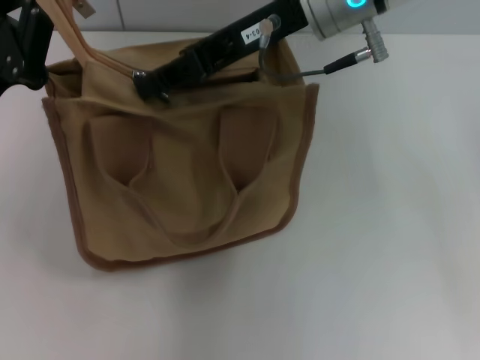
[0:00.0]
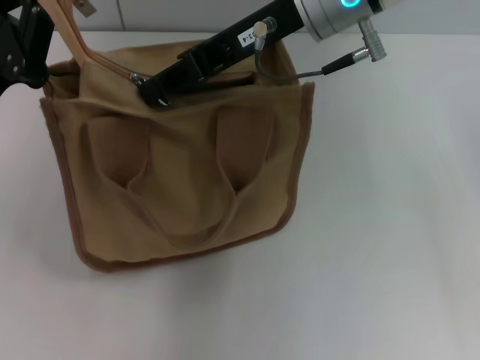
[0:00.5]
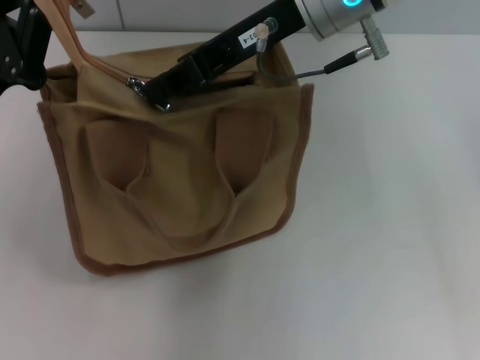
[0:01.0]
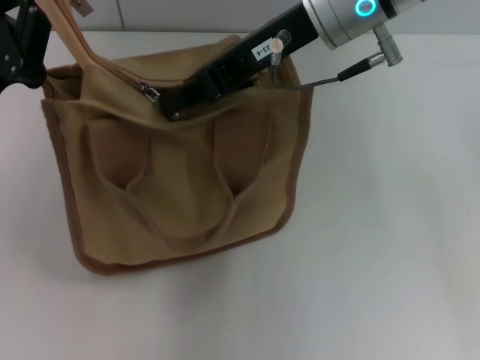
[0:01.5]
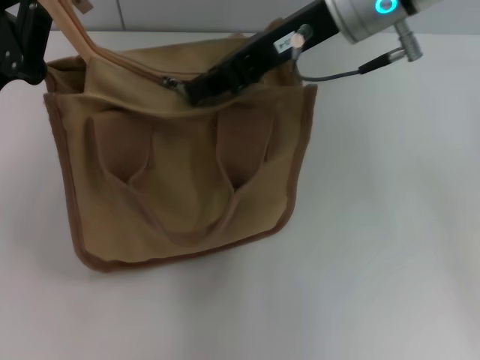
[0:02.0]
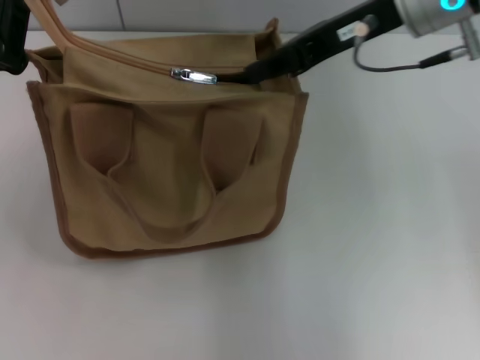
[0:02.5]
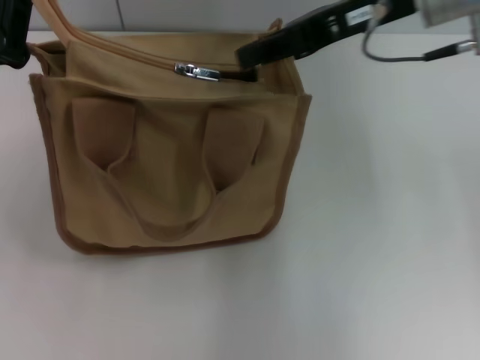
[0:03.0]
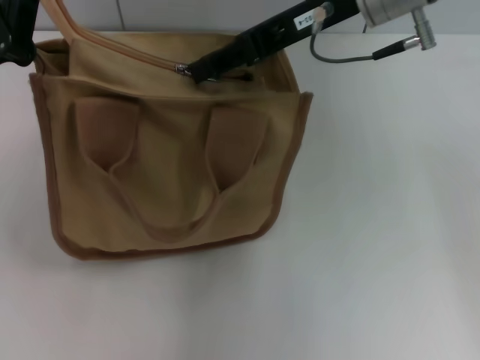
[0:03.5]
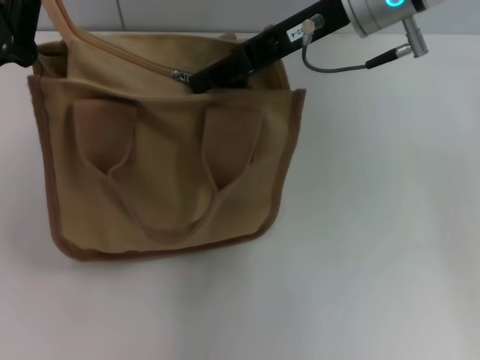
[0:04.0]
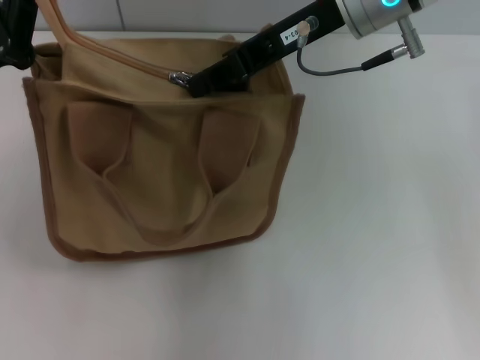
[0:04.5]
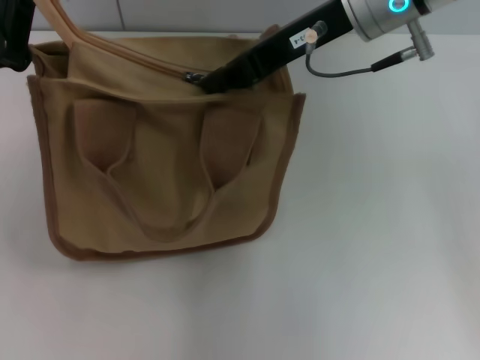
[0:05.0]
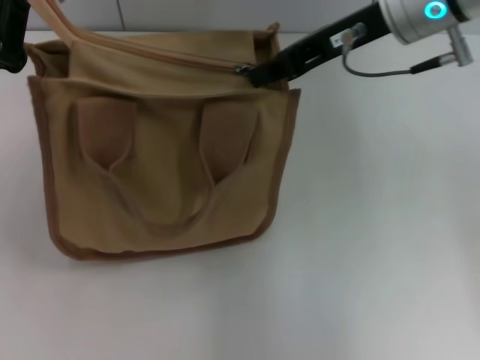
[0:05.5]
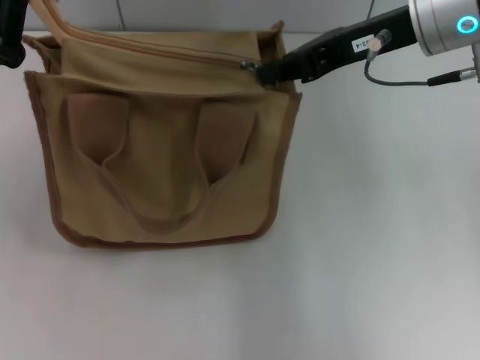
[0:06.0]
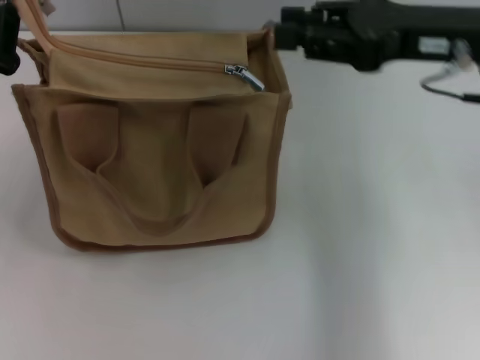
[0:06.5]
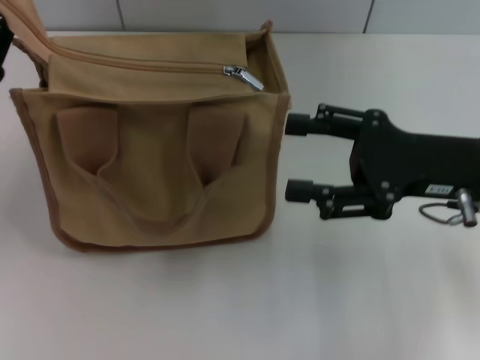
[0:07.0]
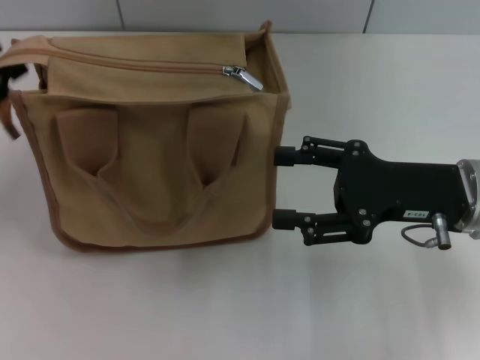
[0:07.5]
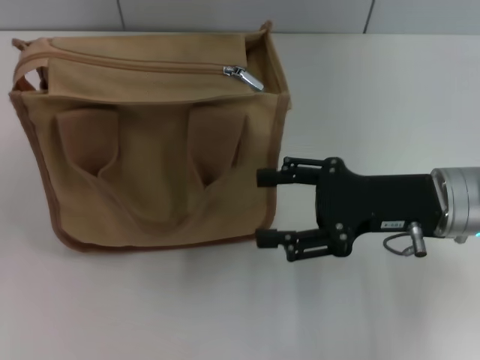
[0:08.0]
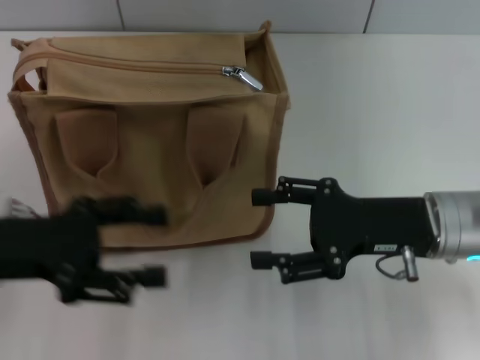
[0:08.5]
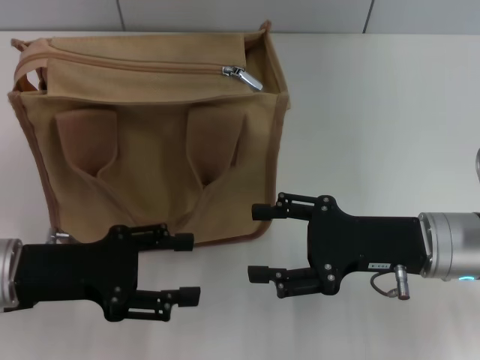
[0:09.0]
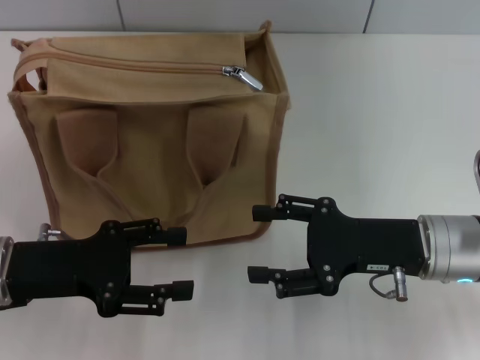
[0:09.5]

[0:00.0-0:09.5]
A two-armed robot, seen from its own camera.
Step, 0.0 to 6.0 s: Pull up the zipper with your right hand.
Step, 6.5 to 7.5 s: Grab the zipper with your left hand.
0.0 to 2.0 s: The grippers move only a little.
2.0 to 4.0 s: The right gripper opens.
4.0 to 5.5 s: The right gripper closes.
5.5 to 7.5 s: The left gripper is displaced to the left by roughly 10 cm, and opens. The right gripper moves downward, backward and to the right, some 20 cm, and opens.
7.5 to 9.5 s: The right gripper ends up about 5 cm from where it was. The left gripper heads to the right and downward, covering about 10 cm, and opens.

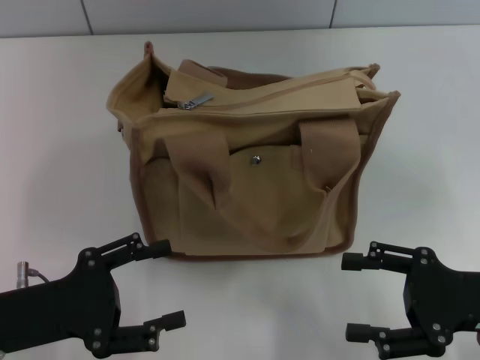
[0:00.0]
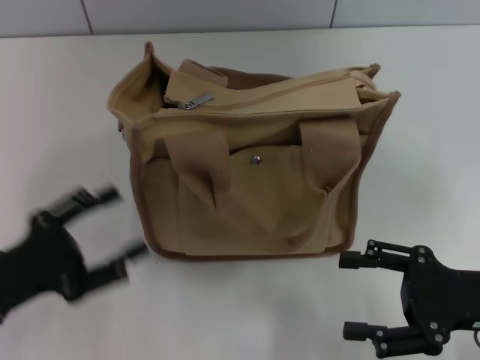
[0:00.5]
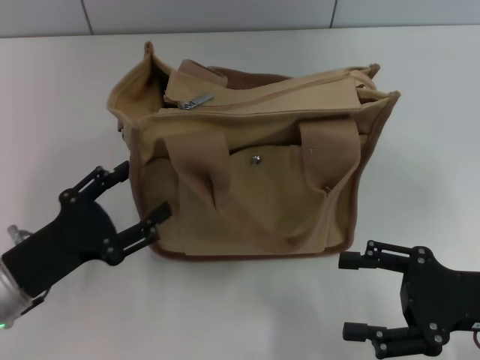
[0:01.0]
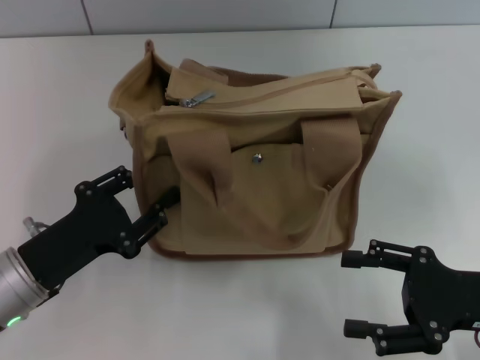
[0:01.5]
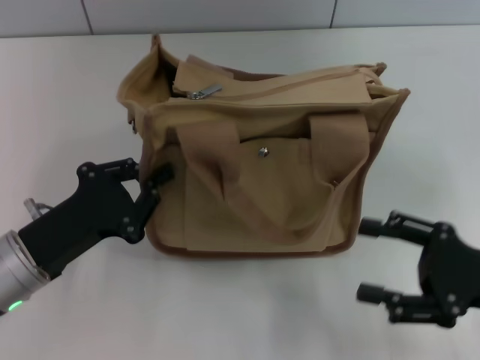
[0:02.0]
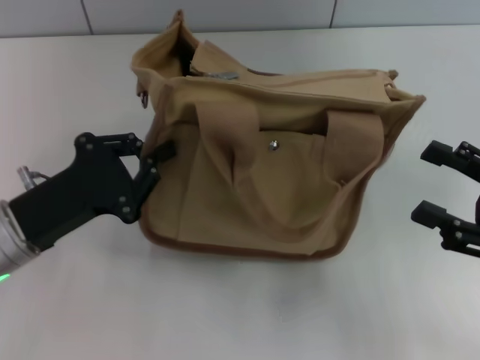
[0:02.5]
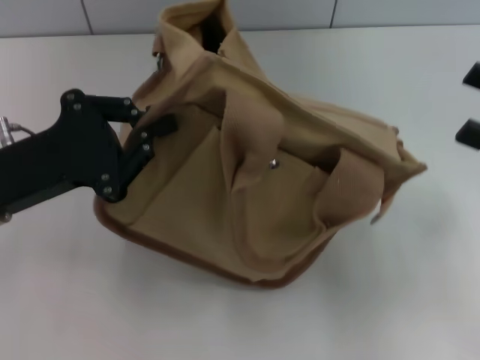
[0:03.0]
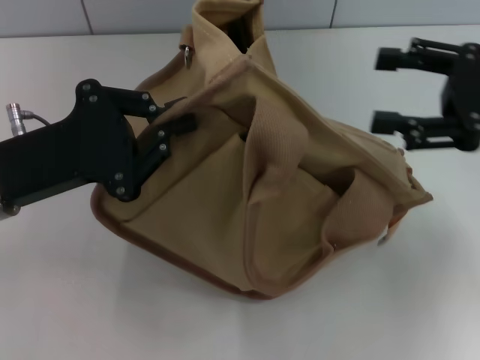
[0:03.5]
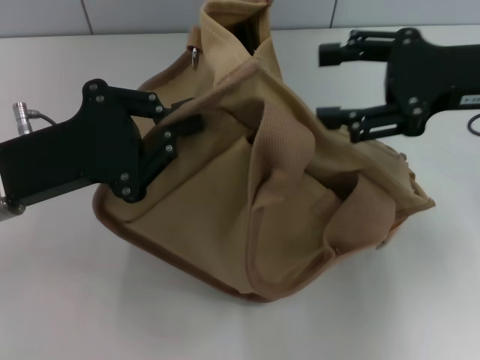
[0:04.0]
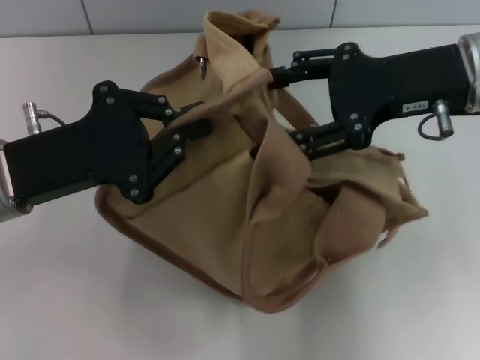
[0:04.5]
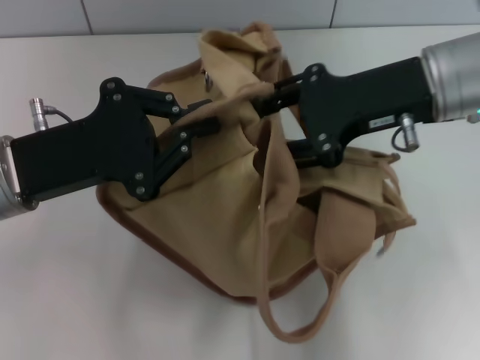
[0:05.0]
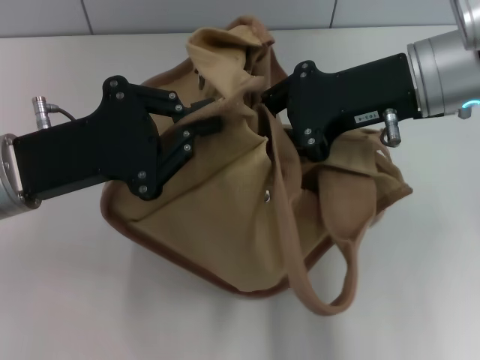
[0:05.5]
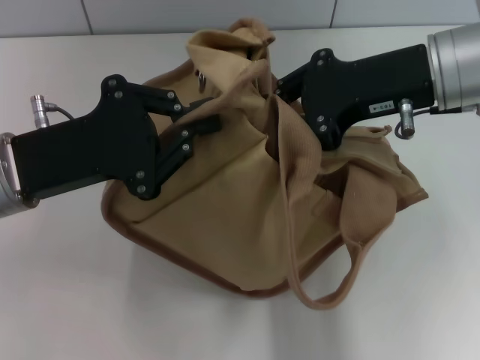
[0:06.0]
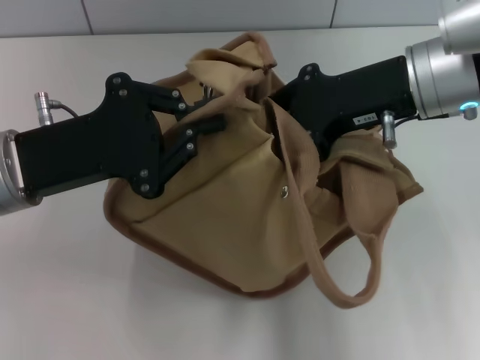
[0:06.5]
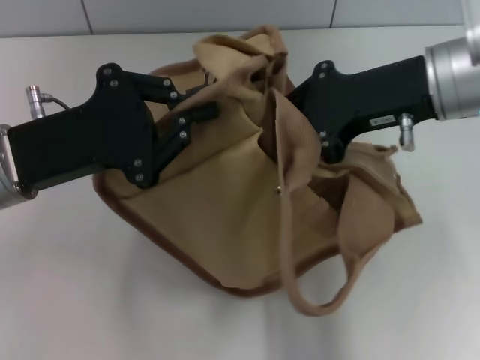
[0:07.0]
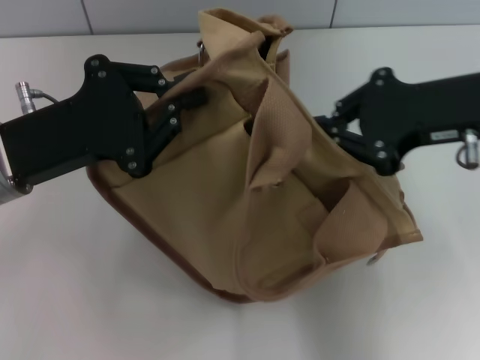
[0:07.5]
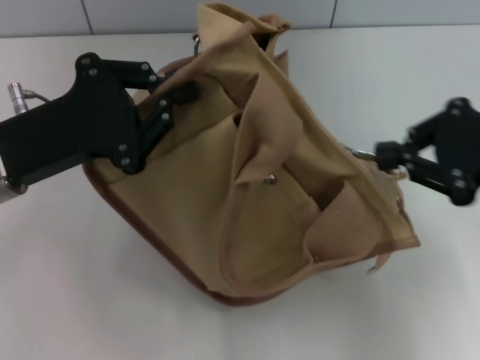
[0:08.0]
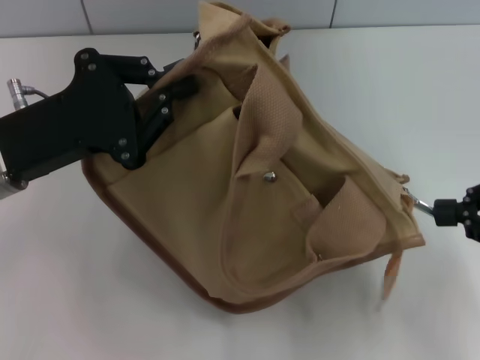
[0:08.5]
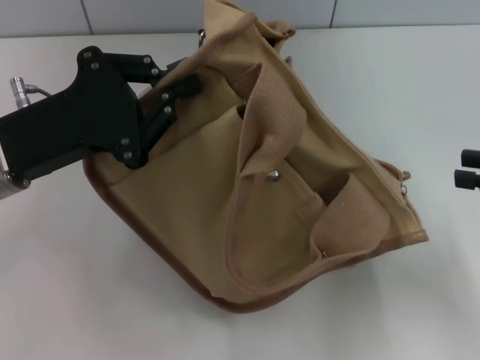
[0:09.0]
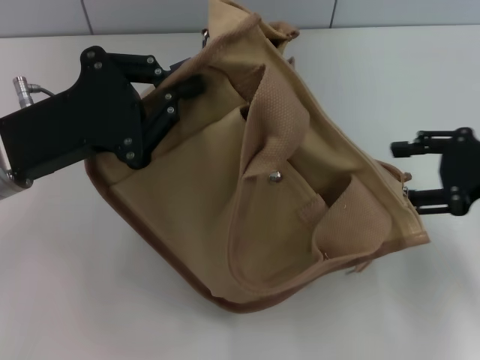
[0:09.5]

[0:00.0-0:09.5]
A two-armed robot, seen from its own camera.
Step, 0.0 to 8.5 s: Pull open the zipper with your right hand.
0.0 to 2.0 s: The left gripper closes up.
2.0 to 4.0 s: The right gripper shifts approximately 20 cm upward and forward. Meanwhile the left gripper goes approximately 10 cm upward.
4.0 to 5.5 s: The right gripper moves to the left, approximately 10 cm, and closes its fingers.
5.5 to 7.5 s: The right gripper moves to the right, roughly 5 cm, and closes up.
7.5 to 9.5 s: The right gripper goes some 10 cm to the right and downward, and opens.

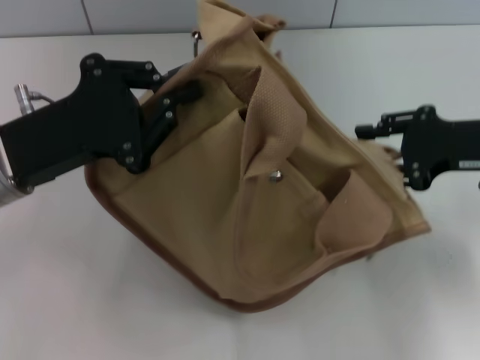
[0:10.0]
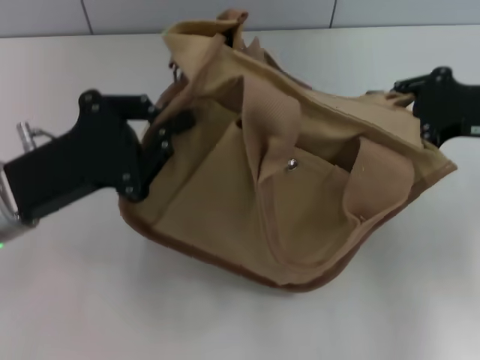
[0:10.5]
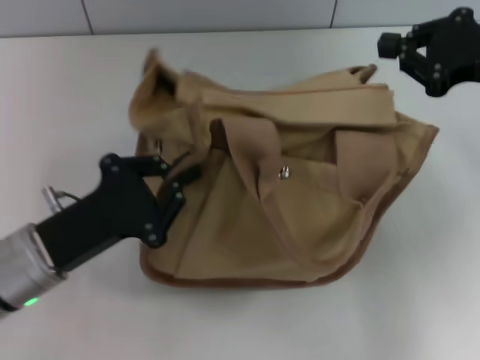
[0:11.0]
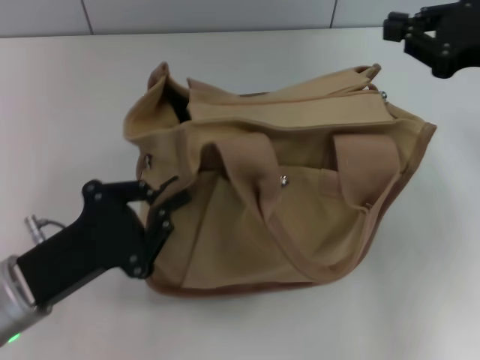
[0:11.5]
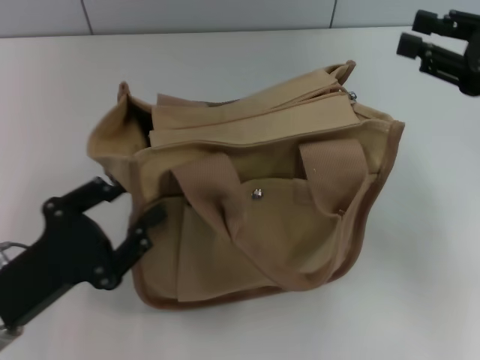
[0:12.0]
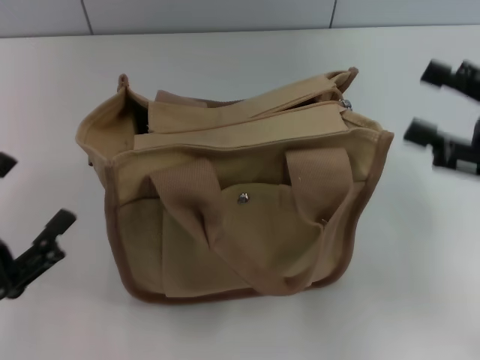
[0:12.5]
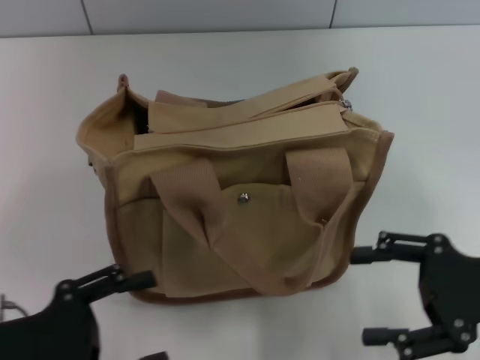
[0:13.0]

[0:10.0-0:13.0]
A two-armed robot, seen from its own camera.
Step, 10.0 to 12.0 s: Grab the bag with your left hand.
10.0 to 11.5 s: The left gripper goes about 10 cm downward and backward. Meanwhile the right gripper travels upward by about 5 cm, and closes its fingers.
11.5 to 13.0 s: The left gripper heads to the left, covering roughly 5 cm, and opens up; the right gripper travels backward and downward by approximately 15 cm, and opens.

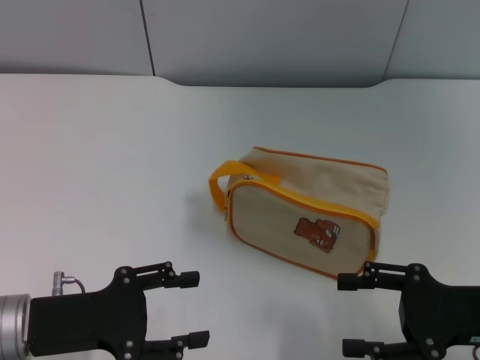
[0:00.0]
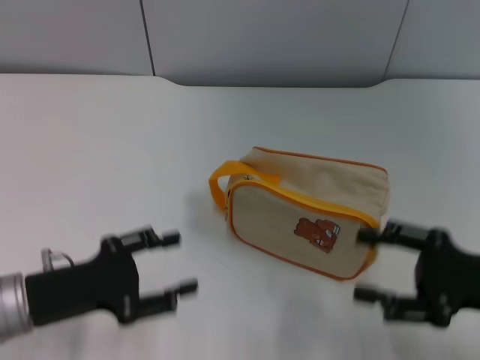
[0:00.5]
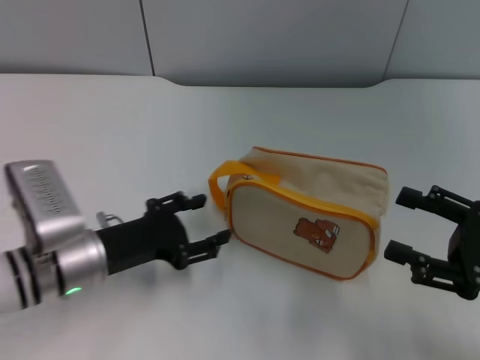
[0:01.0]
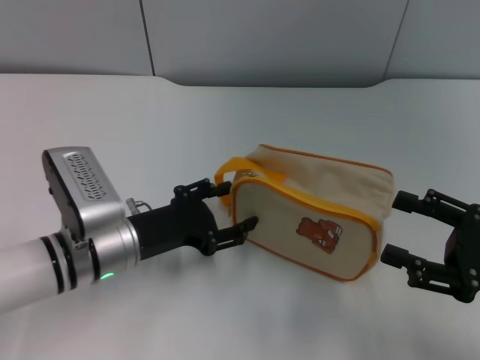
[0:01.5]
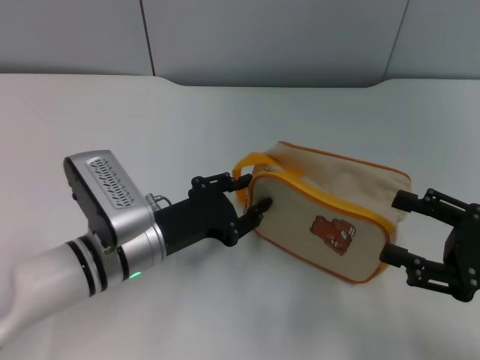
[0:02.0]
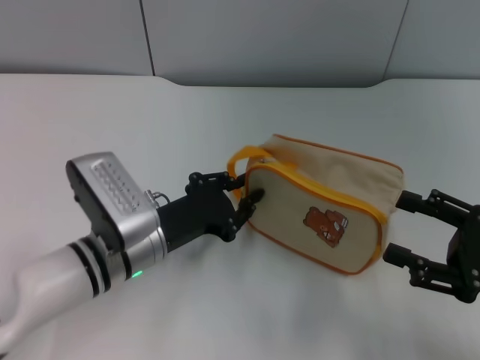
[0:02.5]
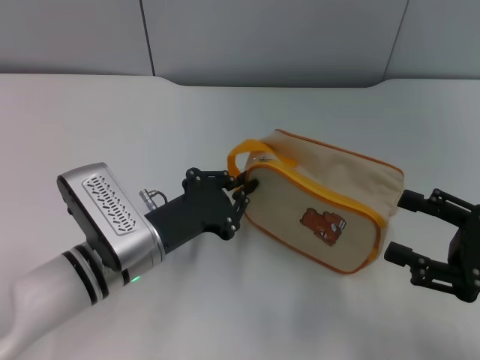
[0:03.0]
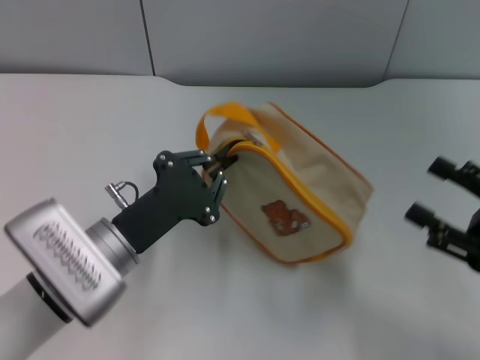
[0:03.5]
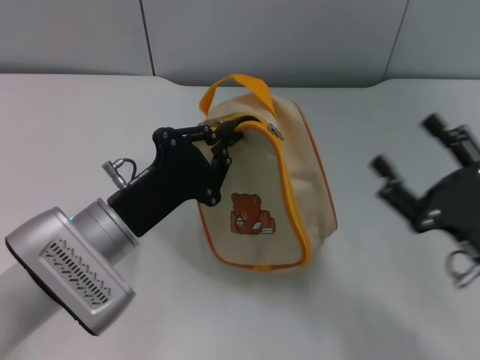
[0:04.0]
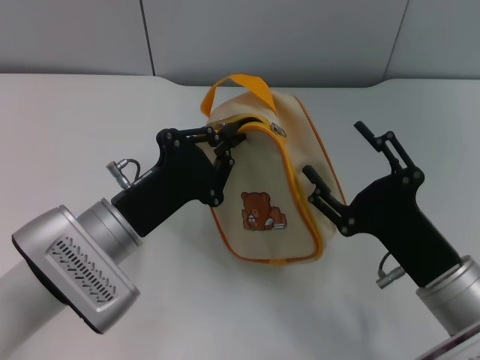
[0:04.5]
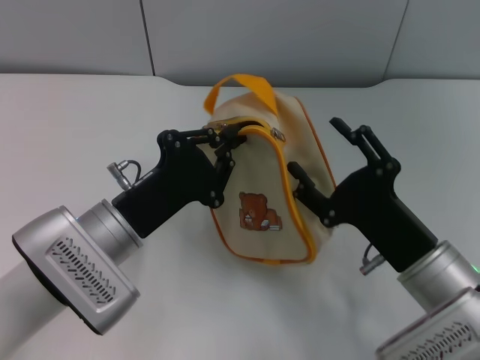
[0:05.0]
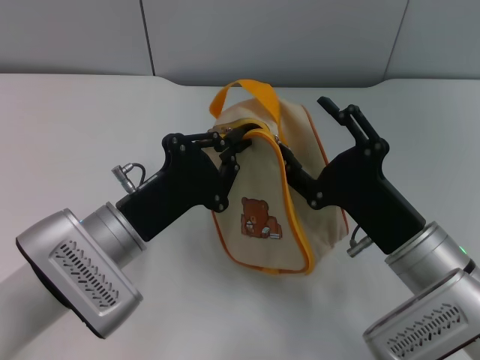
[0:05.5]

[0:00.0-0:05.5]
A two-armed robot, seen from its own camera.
Step, 0.0 to 3.0 s: Pick up the bag with left gripper.
0.0 to 2.0 s: The left gripper is displaced to the right and forward by roughly 15 cm.
2.0 to 3.5 s: The left gripper closes.
3.5 to 5.5 s: The right gripper is displaced to the left by some 15 cm.
